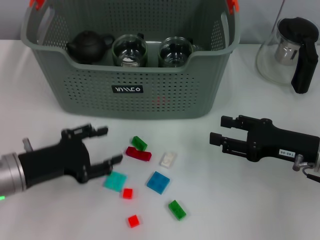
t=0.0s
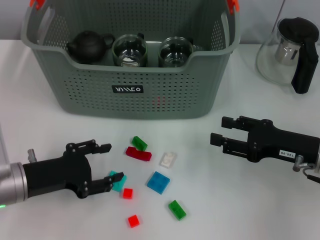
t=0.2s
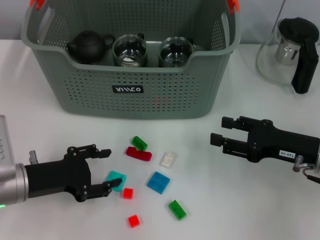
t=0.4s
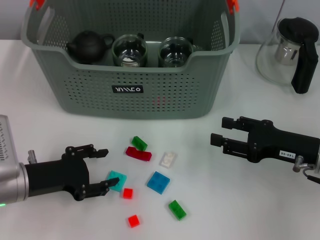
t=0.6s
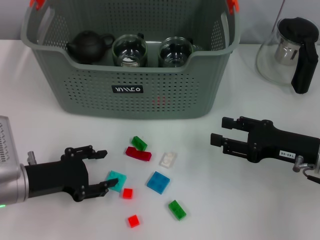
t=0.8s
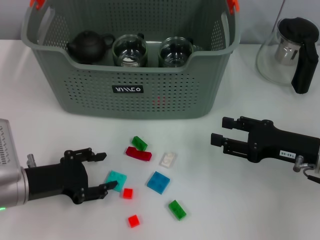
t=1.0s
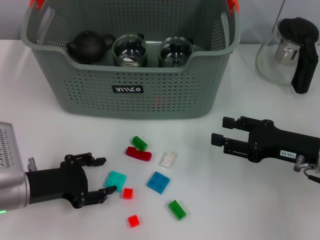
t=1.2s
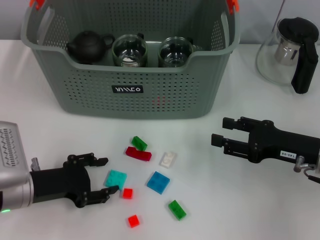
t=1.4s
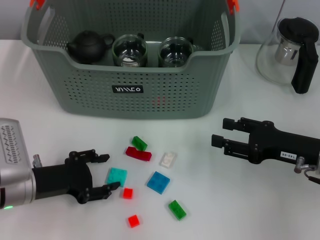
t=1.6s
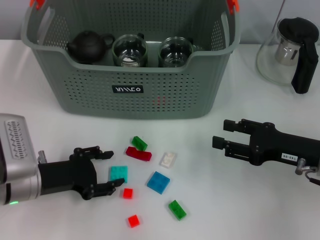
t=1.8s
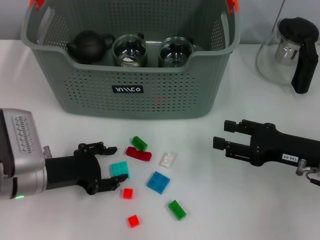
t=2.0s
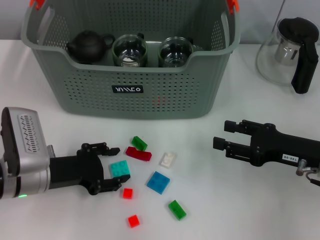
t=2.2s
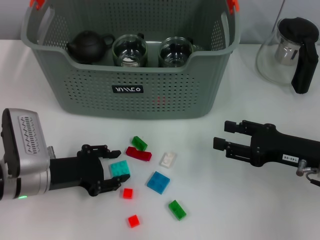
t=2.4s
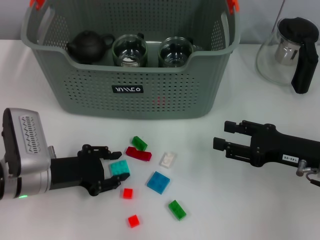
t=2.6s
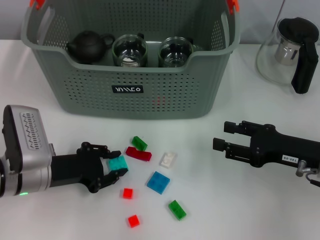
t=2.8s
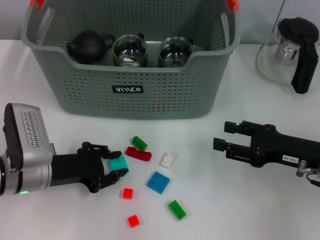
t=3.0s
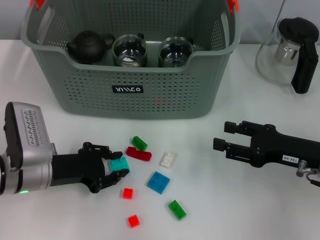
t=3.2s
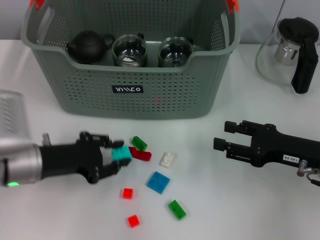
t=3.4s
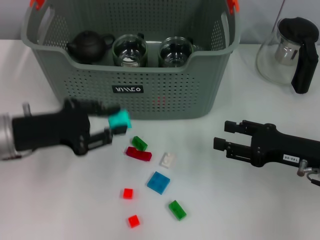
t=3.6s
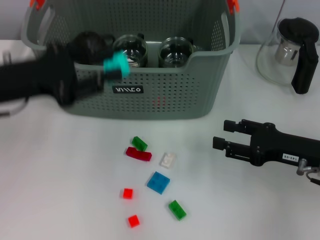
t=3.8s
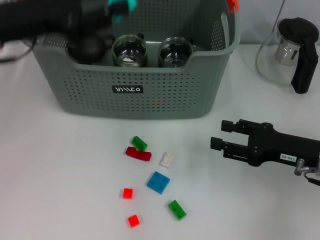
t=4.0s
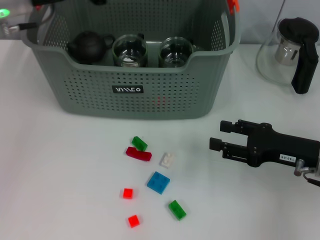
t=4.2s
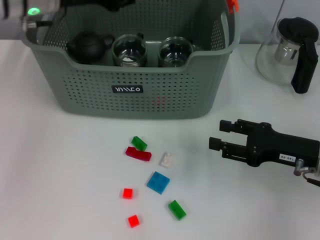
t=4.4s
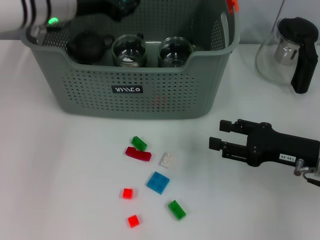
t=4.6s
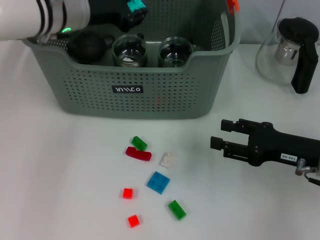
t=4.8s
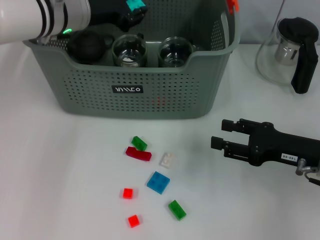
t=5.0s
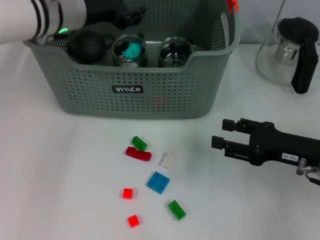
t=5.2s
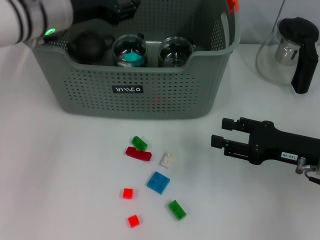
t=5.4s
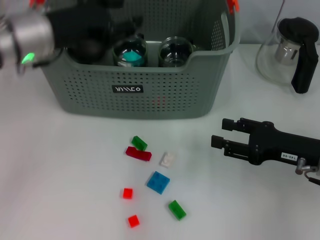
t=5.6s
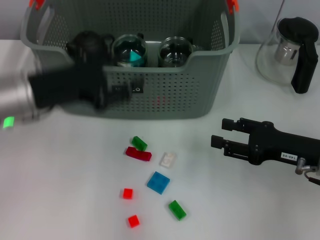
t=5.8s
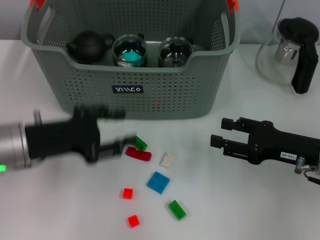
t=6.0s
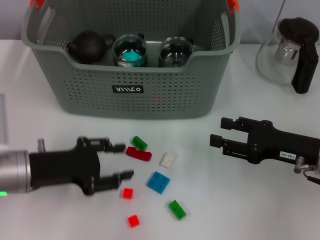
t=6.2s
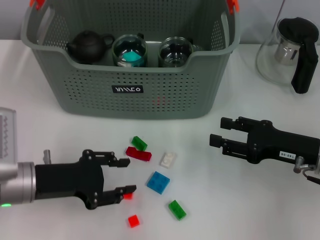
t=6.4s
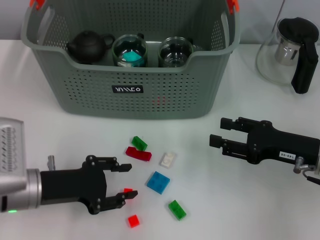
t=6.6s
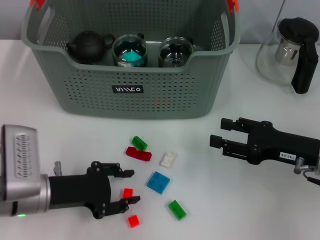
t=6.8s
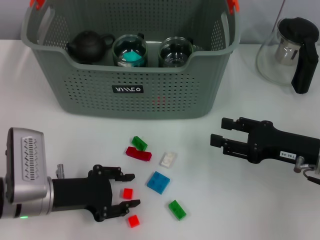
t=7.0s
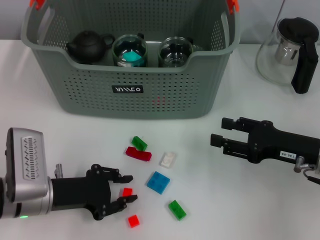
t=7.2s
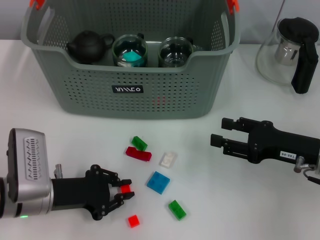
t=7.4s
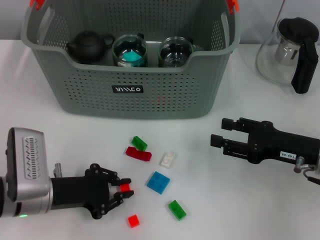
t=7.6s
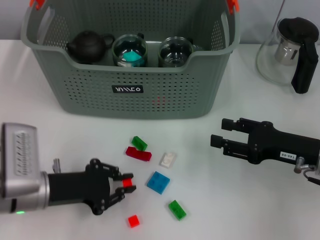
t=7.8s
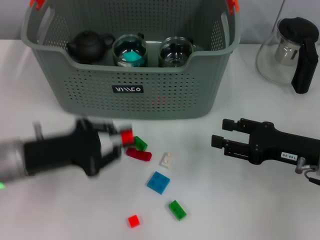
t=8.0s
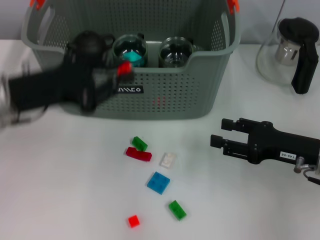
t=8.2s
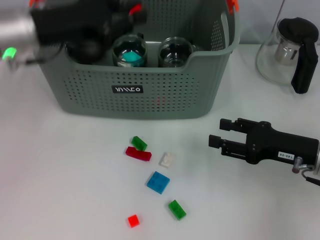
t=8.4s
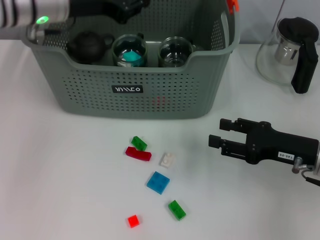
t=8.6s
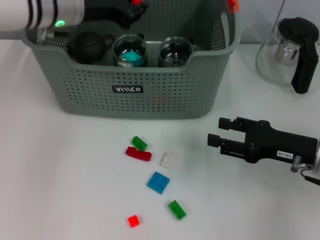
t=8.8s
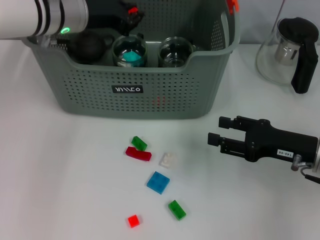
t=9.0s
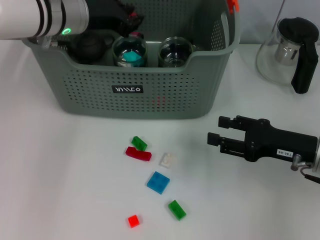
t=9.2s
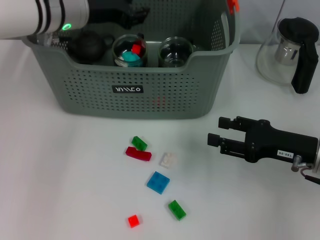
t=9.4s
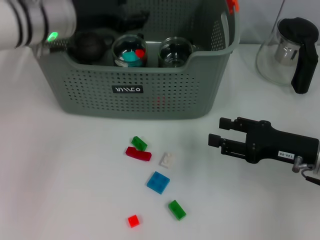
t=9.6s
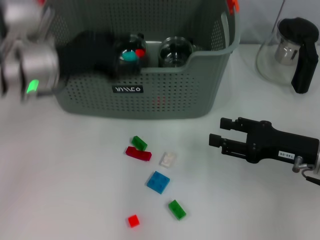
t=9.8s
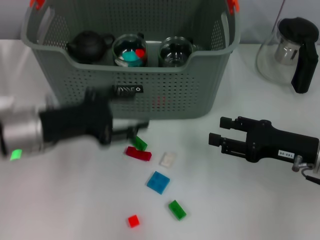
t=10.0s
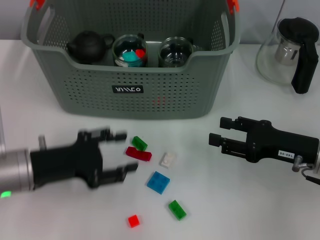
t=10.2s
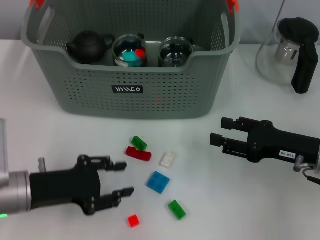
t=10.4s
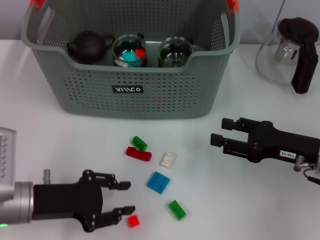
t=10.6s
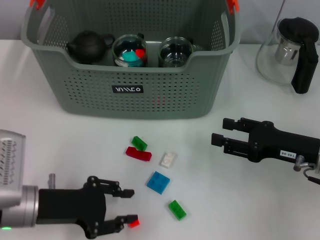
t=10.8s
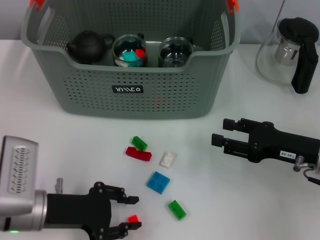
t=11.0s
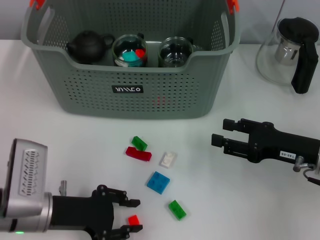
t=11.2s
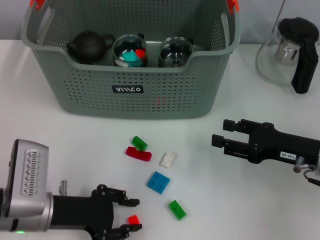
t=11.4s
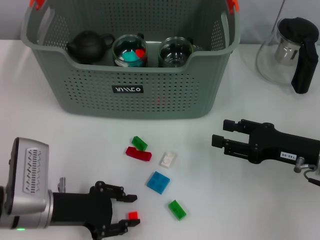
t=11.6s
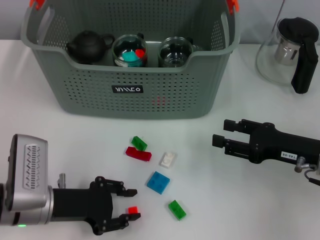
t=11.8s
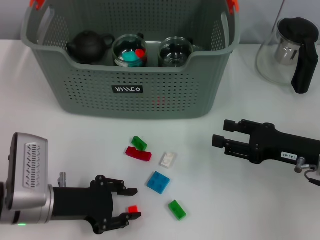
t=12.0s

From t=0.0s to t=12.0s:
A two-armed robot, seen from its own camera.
Task of the whole recording: pick up the teacup on the table and place it into the storage bin, pick up the block on the table and place it into the storage bin.
Step, from t=0.0s to t=2.6s: Grasp the light blue block with left gripper.
Step, from t=3.0s to t=5.2s: Place the light blue block in the storage box with left gripper.
Step, from t=5.6s to t=7.4s: Grasp the orange block with left gripper.
Step, from t=7.6s to t=9.4s: Place the orange block in the storage box with left gripper.
From t=0.0s to t=1.6s: The grippers stay close to where they were, moving slightly.
From t=1.6s to t=3.0s: The left gripper closes up.
From t=3.0s to t=4.4s: The left gripper goes roughly 25 cm upward and forward.
From t=4.4s to t=6.0s: The left gripper heads backward and downward, covering some 20 cm.
From t=6.0s to t=7.6s: The left gripper is displaced downward by about 10 cm, and closes its fingers.
From t=7.6s to t=9.0s: The left gripper moves forward and upward, approximately 25 cm.
From t=9.0s to t=10.4s: The left gripper shifts roughly 25 cm backward and downward, and opens.
From t=10.4s to t=12.0s: The grippers stay close to where they were, moving slightly.

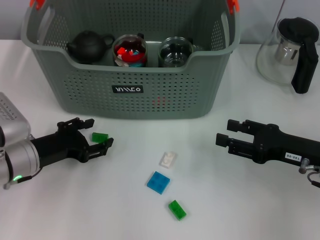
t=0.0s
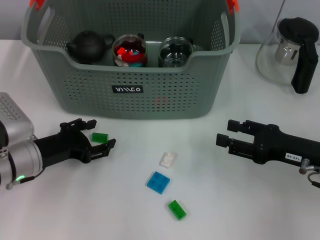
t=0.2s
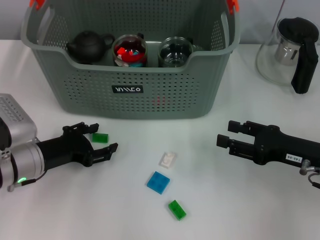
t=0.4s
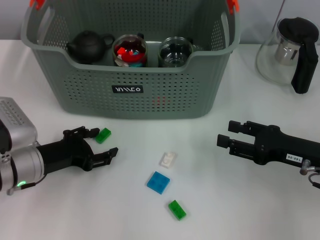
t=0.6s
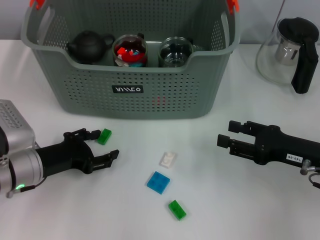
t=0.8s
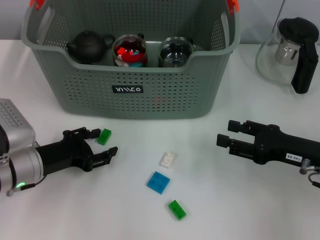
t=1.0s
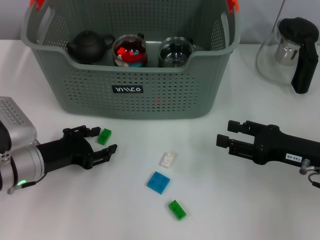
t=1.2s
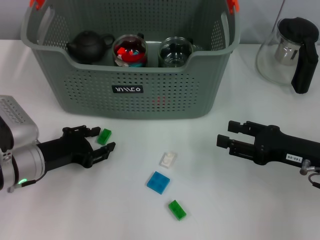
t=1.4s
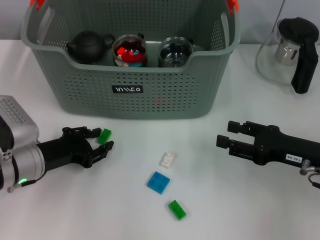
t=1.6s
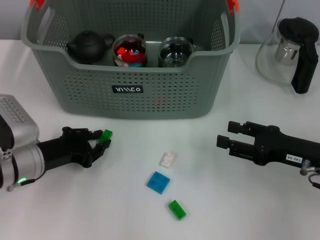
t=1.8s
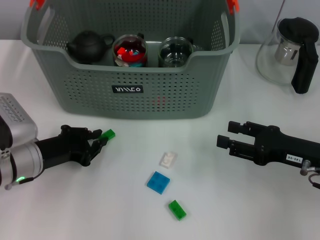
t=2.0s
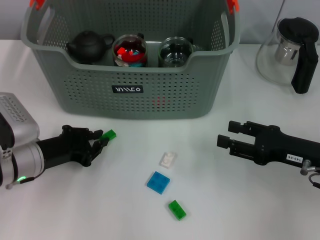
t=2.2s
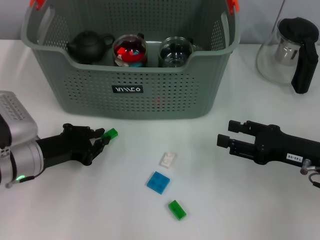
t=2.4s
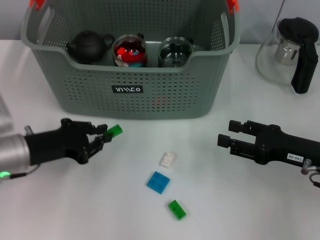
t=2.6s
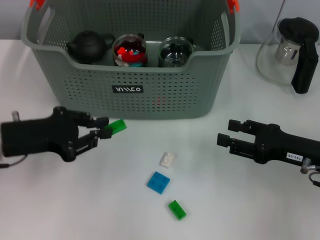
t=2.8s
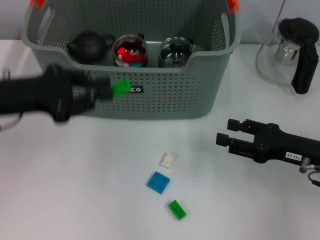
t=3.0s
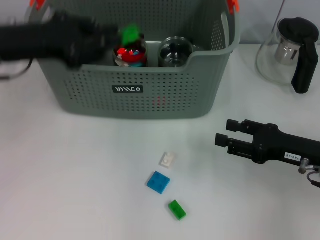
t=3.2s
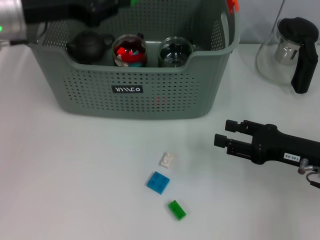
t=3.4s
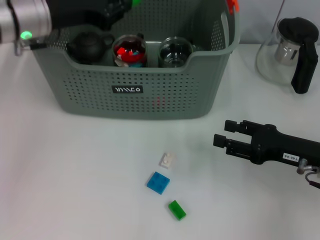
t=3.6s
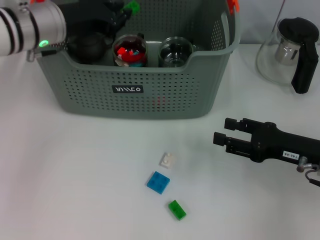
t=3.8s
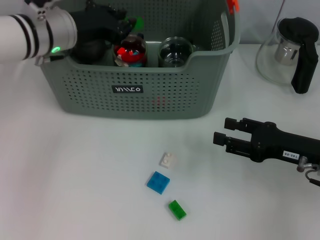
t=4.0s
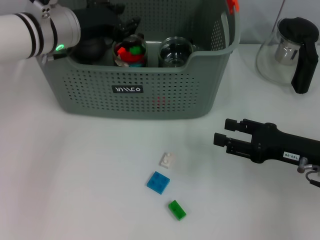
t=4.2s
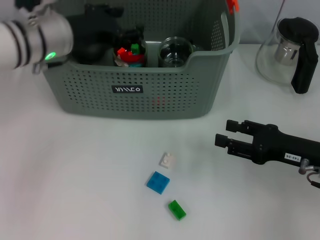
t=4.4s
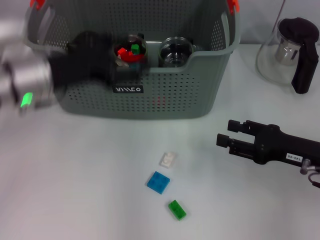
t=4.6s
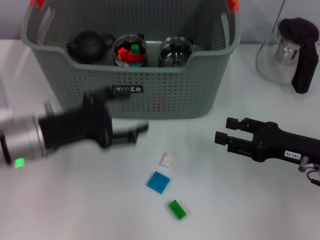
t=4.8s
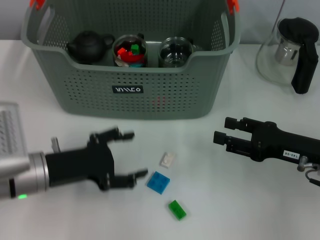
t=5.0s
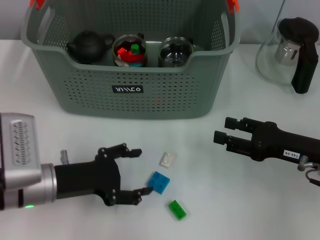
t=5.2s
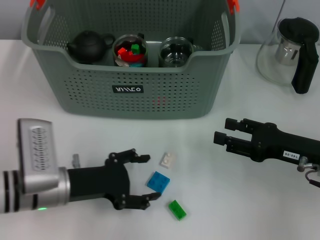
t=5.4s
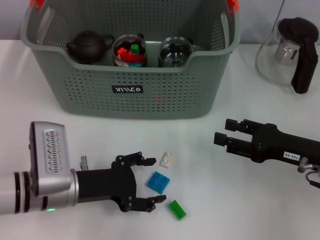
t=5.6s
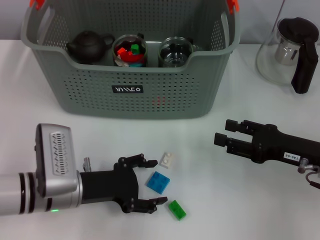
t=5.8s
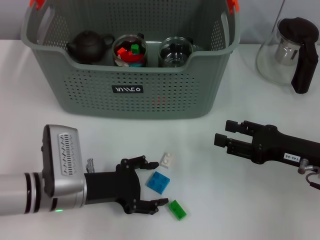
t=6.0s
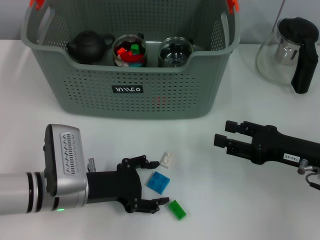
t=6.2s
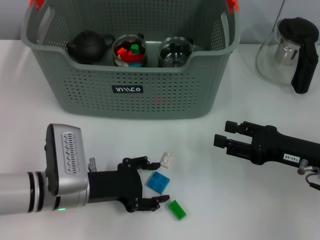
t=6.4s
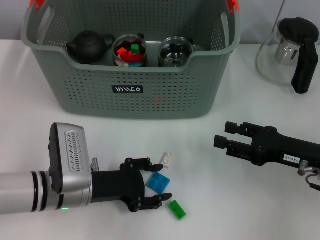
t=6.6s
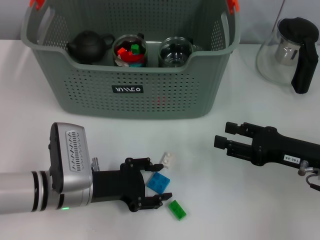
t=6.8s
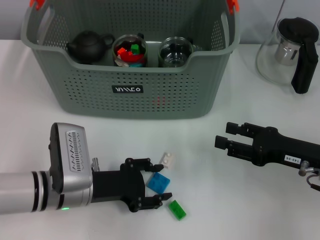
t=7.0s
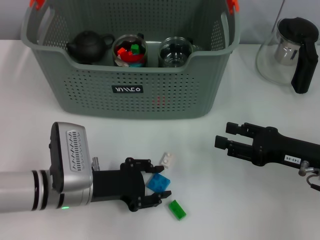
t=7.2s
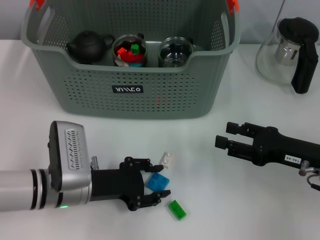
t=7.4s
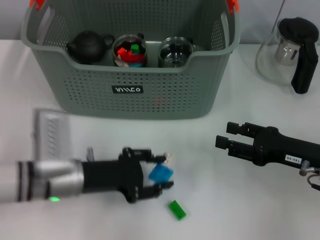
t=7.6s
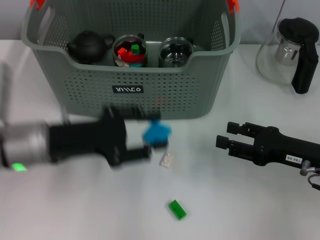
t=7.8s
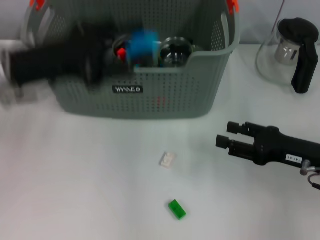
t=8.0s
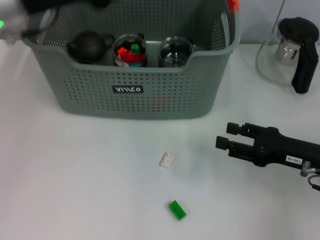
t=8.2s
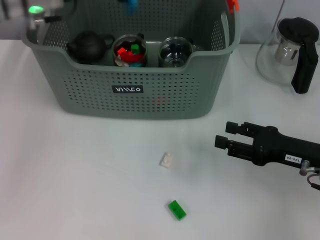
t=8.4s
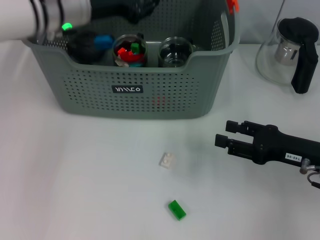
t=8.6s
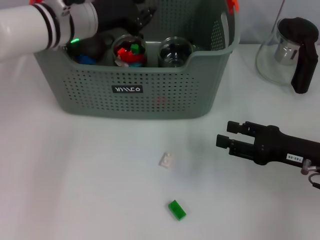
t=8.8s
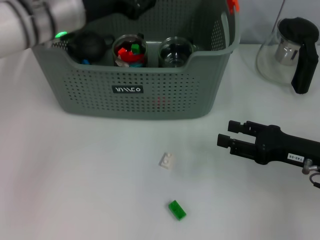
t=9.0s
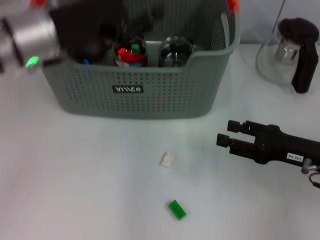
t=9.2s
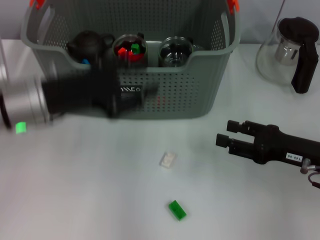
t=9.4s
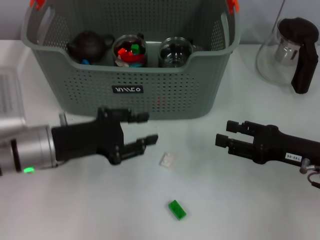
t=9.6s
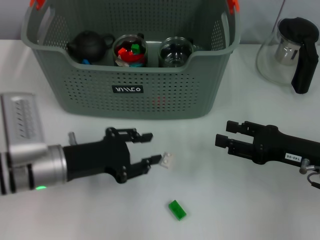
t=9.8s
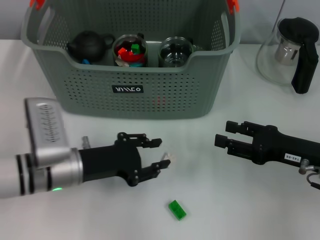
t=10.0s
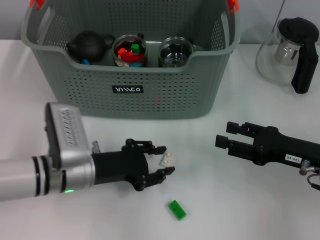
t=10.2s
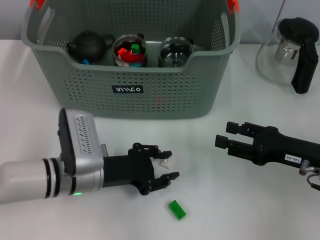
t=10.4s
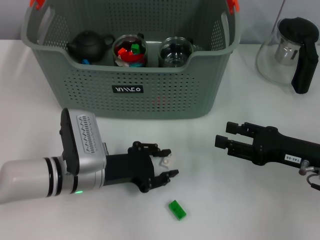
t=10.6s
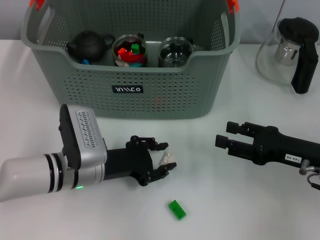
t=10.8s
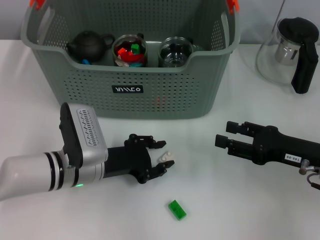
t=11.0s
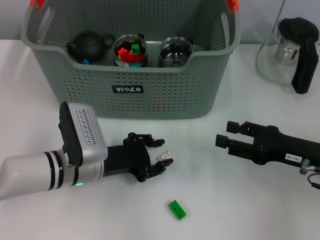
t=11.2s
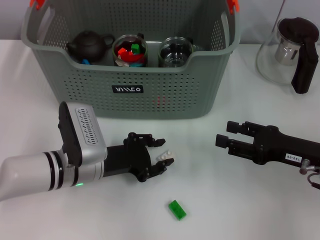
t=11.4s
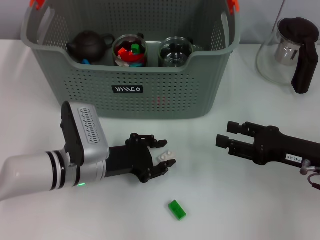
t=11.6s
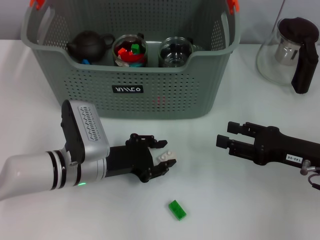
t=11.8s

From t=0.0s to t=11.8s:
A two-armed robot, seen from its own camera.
Task of the whole recording: pick up the teacup on the table and place it into the storage bin, pick up the block on the table and place it into the storage bin.
Step, from t=0.0s to t=2.0s: Grasp the green block with left gripper.
Step, from t=2.2s to t=4.2s: Place the green block in the storage box with left gripper.
Step, from t=4.6s to t=7.2s: Grasp the dark blue block with left gripper.
Step, from t=7.4s to t=8.8s: Place the dark blue block in the storage box with left gripper.
From t=0.0s to t=1.4s: The two grippers keep their place.
From t=1.4s to t=3.0s: The left gripper heads upward, covering some 15 cm, and closes.
From t=3.0s to t=4.4s: The left gripper is displaced forward and to the right by approximately 10 cm.
From t=4.4s to t=6.0s: The left gripper travels downward and backward by approximately 20 cm, and opens up.
From t=6.0s to t=7.4s: The two grippers keep their place.
From t=7.4s to t=8.8s: The left gripper goes roughly 20 cm upward and forward.
From t=8.8s to t=10.4s: The left gripper heads downward and backward, covering some 20 cm.
From t=10.4s to t=11.8s: There are only small adjustments of the grippers.
